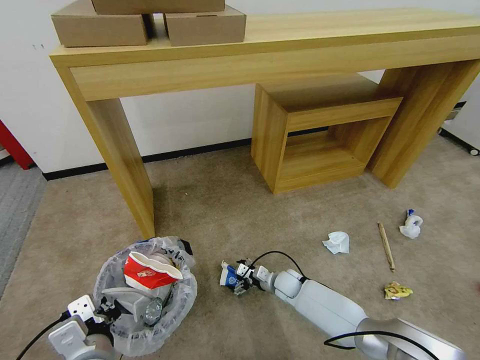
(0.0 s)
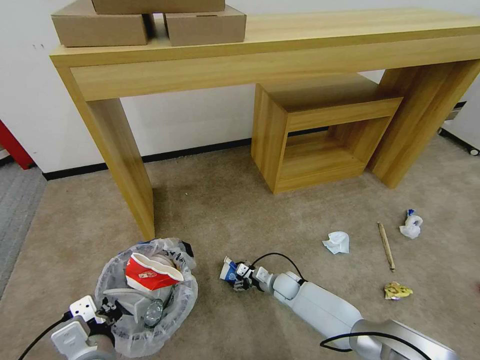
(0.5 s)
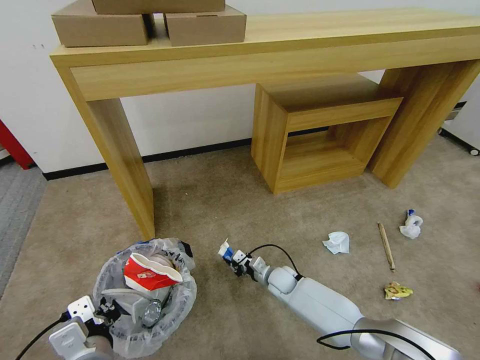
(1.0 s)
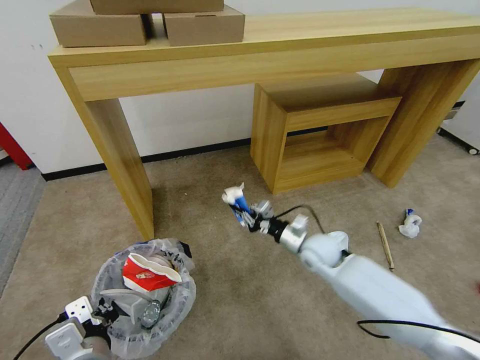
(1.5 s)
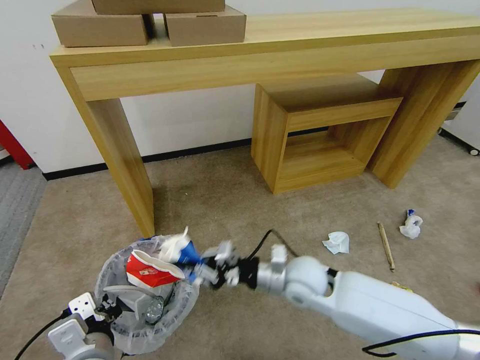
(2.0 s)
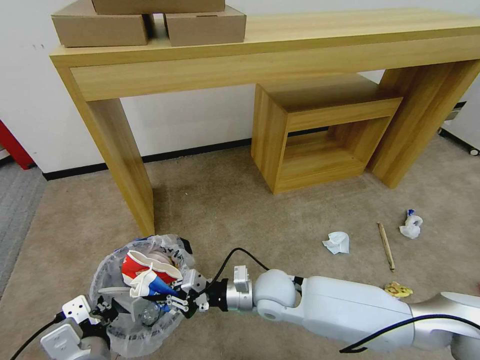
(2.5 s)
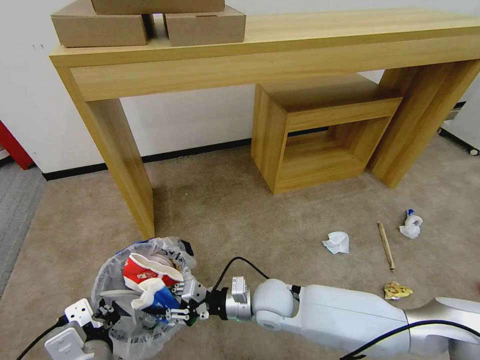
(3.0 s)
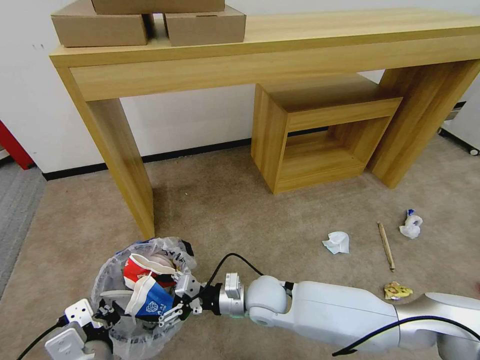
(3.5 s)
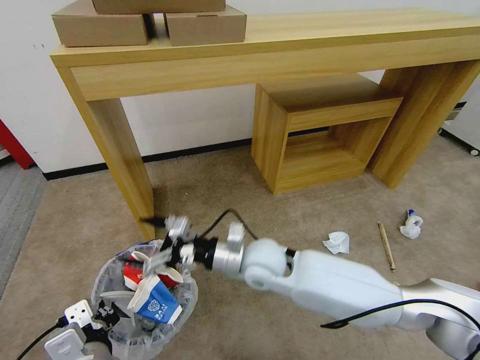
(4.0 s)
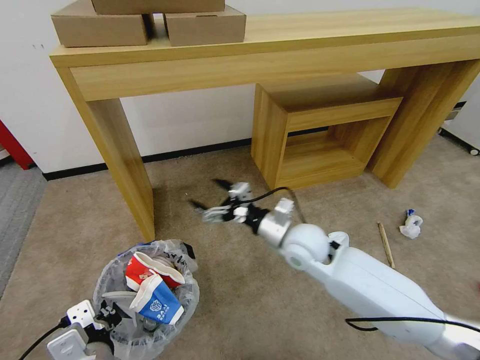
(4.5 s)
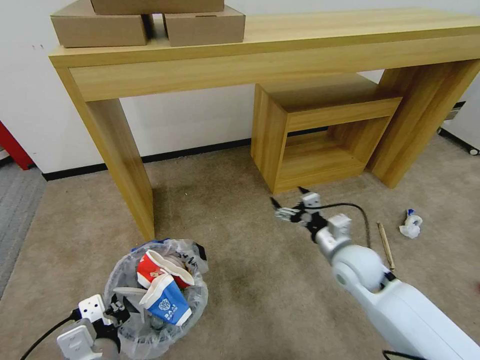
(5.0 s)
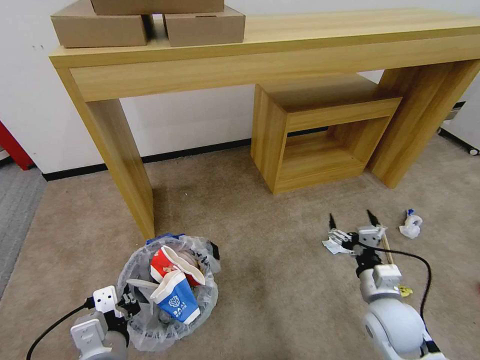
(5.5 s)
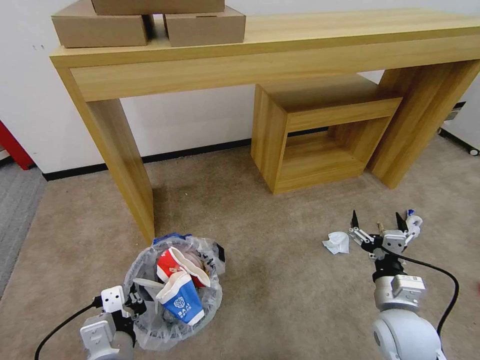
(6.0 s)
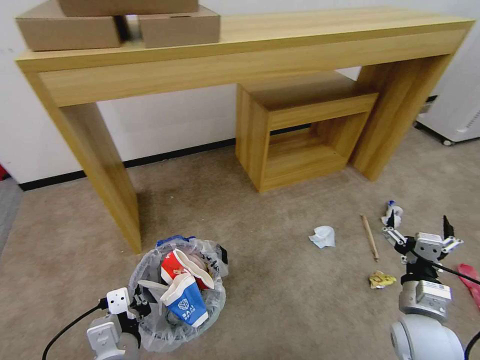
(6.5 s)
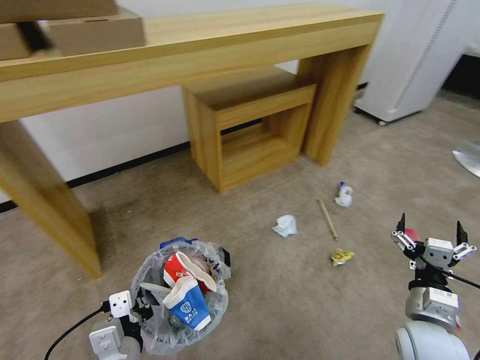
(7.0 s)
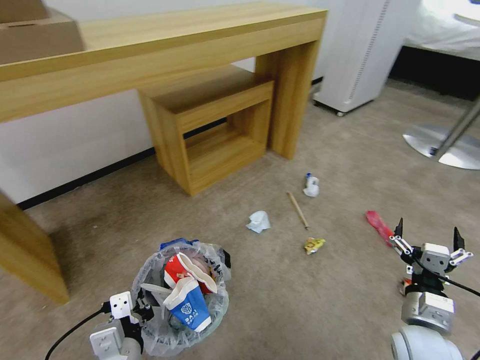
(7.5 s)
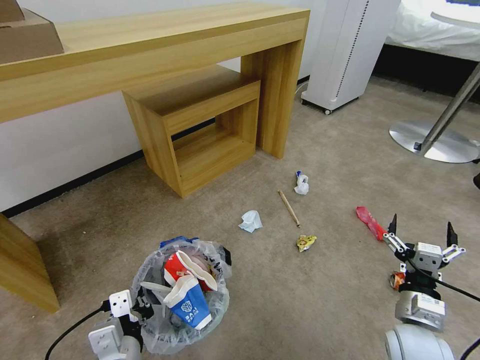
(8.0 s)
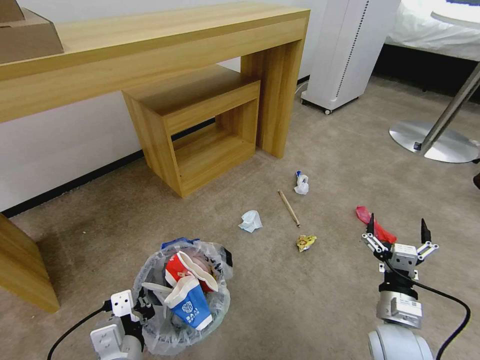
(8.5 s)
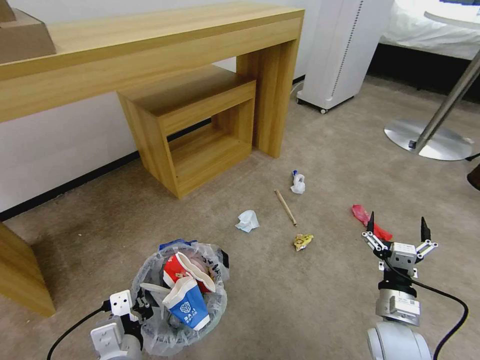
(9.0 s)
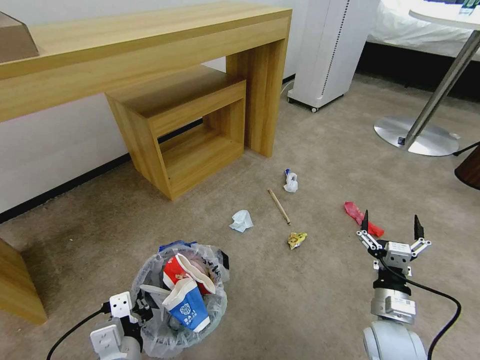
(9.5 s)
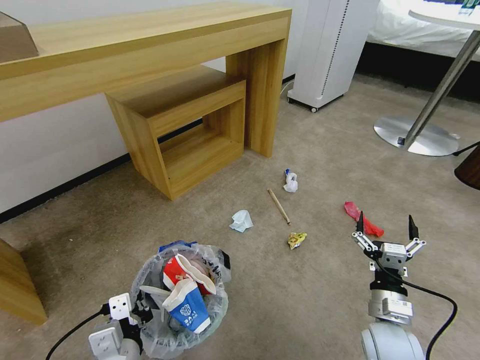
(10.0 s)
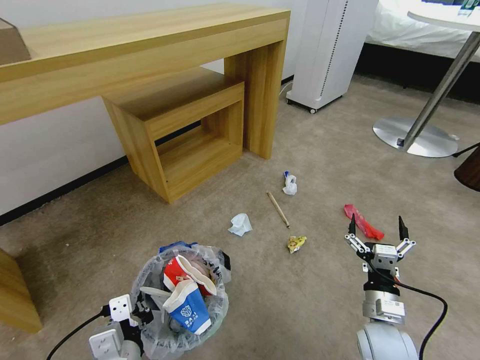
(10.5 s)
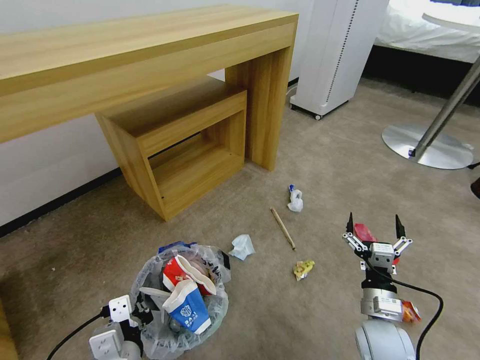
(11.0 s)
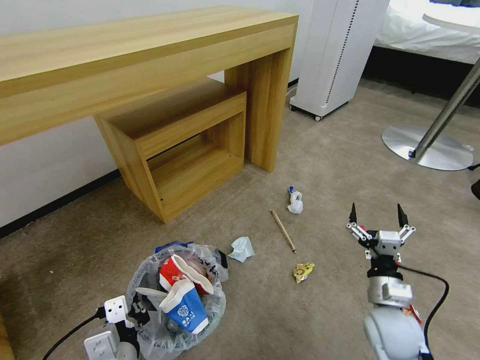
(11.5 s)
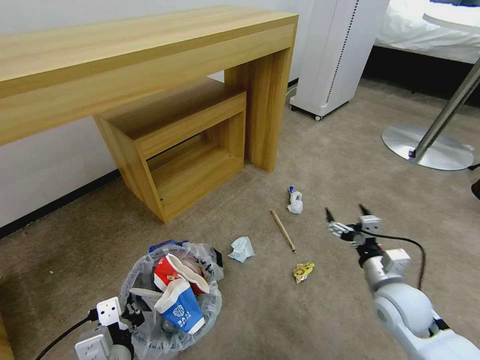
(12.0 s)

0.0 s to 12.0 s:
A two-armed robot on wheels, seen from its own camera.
Task of the whole recording: Pick up the trash bin and place the garbage on the floor into it.
0.0 to 2.0 s: The right gripper goes some 25 cm upward, and closes.
2.0 to 4.0 s: The right gripper shifts approximately 10 cm to the left, and opens its fingers.
4.0 to 6.0 s: The right gripper moves to the right and backward, approximately 30 cm.
10.0 to 12.0 s: The right gripper heads forward, covering about 5 cm.

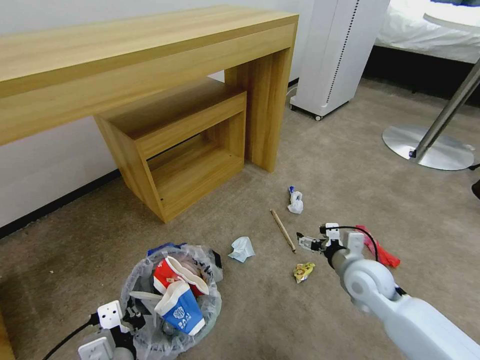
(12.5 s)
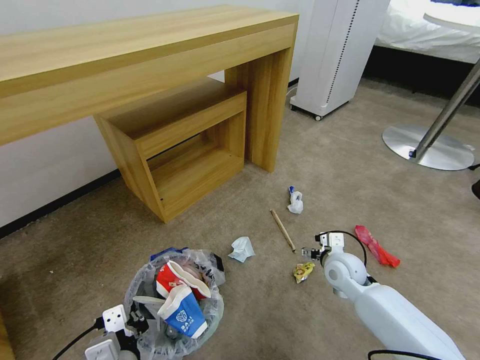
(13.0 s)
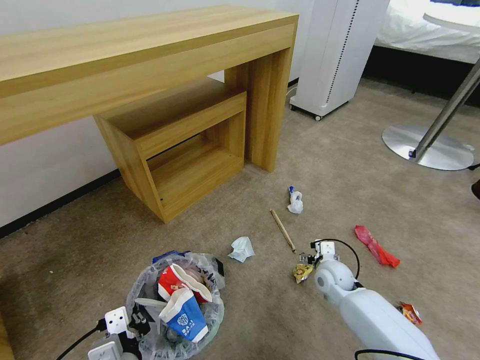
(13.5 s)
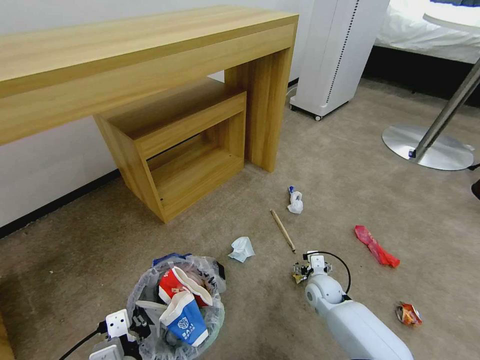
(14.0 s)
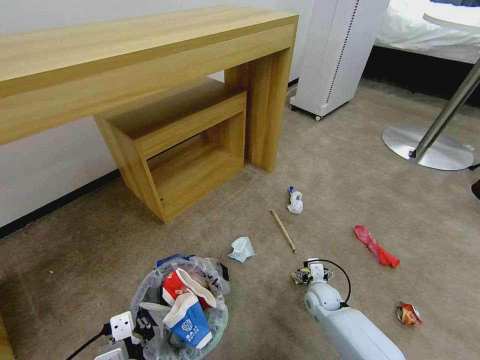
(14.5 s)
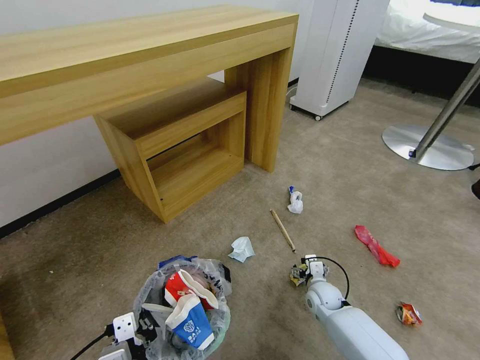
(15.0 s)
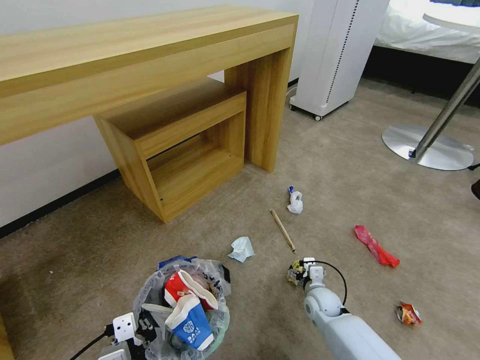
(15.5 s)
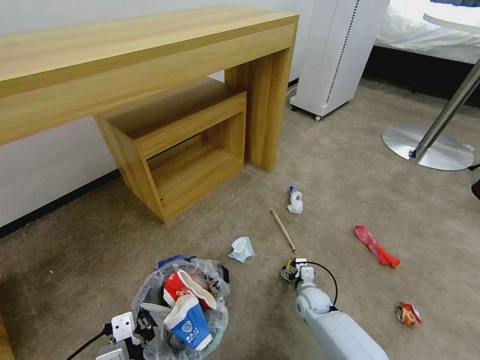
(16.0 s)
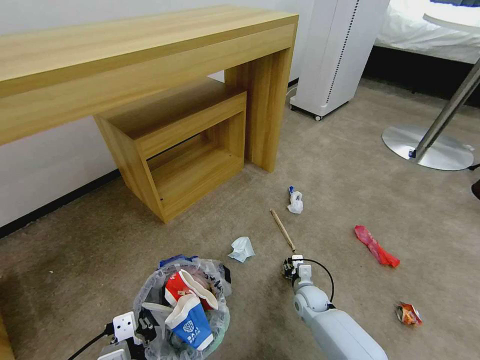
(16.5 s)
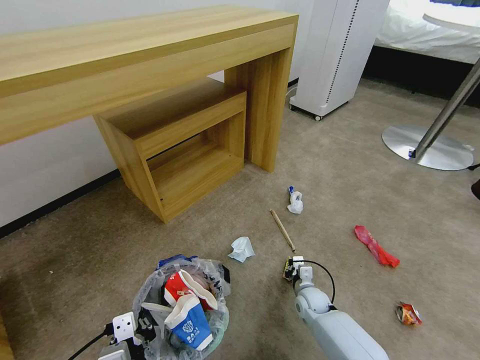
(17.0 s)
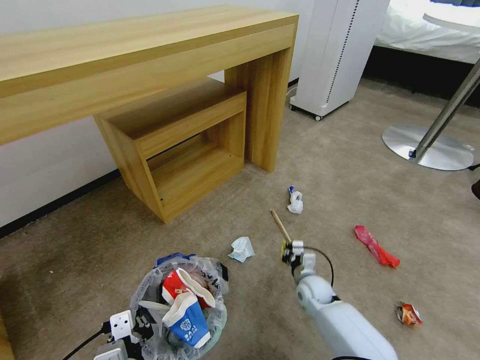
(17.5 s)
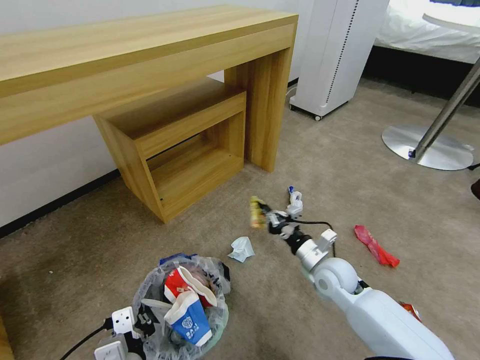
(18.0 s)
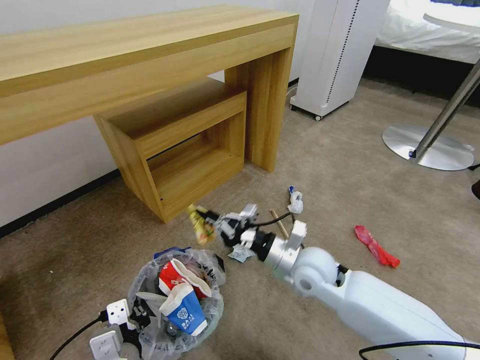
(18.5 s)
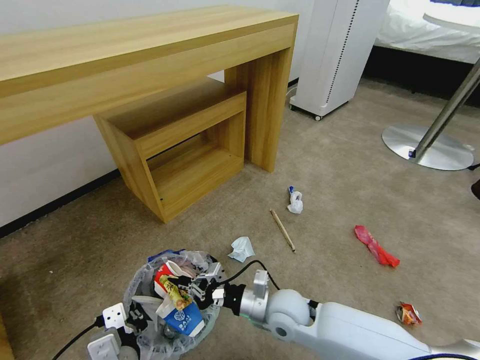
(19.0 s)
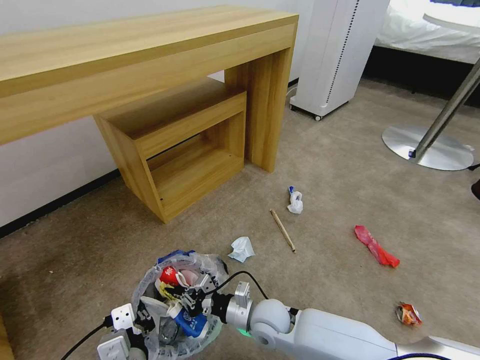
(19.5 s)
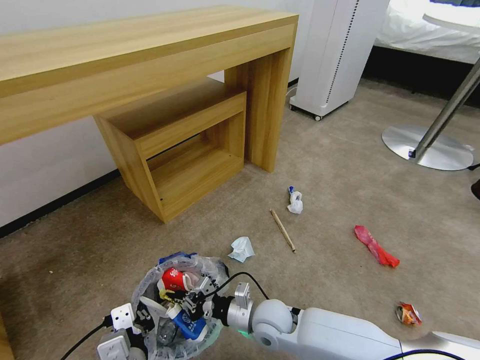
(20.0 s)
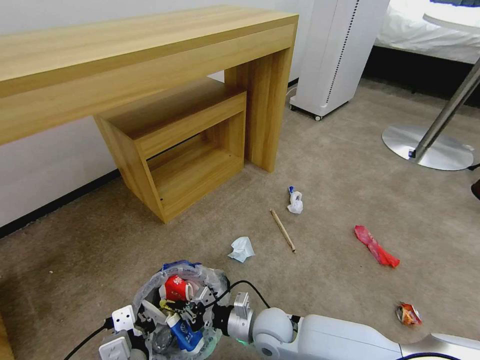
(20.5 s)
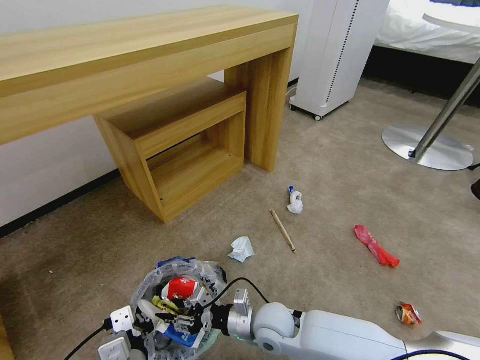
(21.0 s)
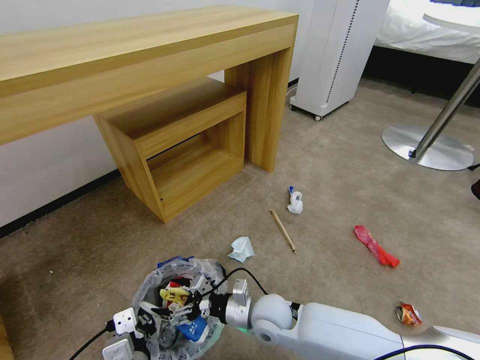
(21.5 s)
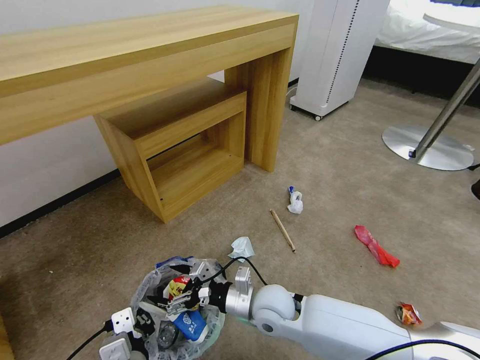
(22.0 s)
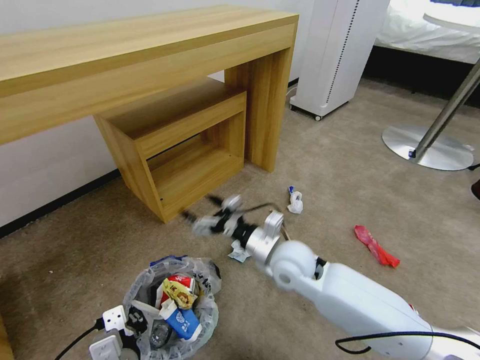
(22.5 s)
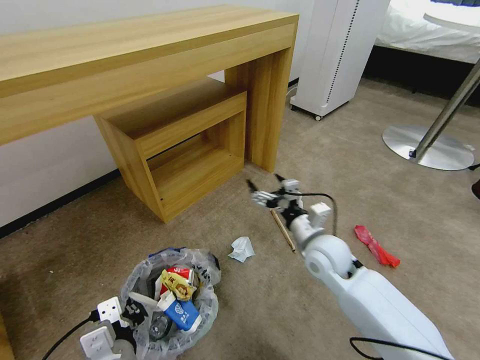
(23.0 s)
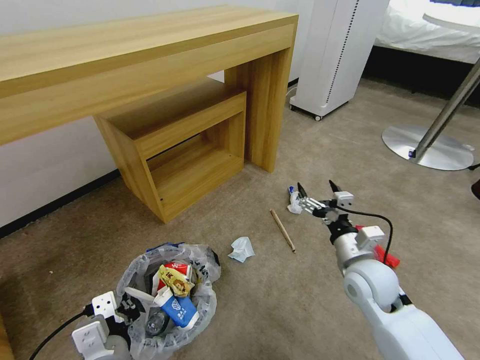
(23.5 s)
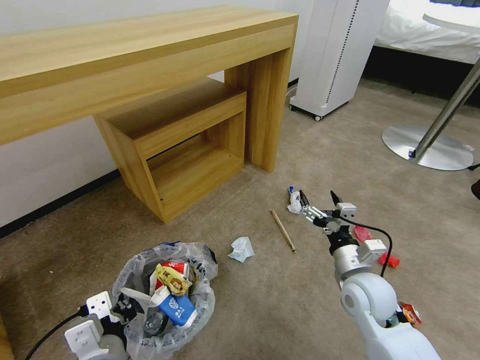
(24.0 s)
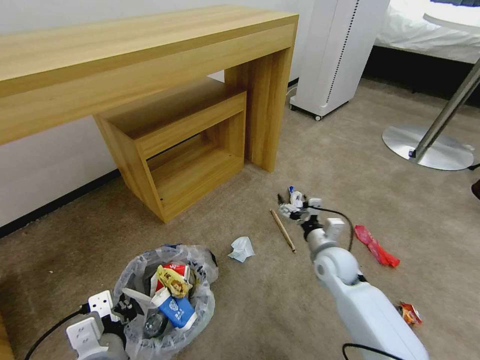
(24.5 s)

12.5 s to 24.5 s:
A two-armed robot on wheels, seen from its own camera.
Task of the whole recording: Pick up the trash bin and place the garbage on the floor into it.
12.5 to 14.5 s: The right gripper shifts approximately 20 cm downward.
14.5 to 16.5 s: The right gripper closes its fingers.
16.5 to 18.5 s: The right gripper goes approximately 25 cm upward, and closes its fingers.
18.5 to 20.5 s: The right gripper heads downward, backward and to the left, covering roughly 20 cm.
20.5 to 22.5 s: The right gripper moves upward and forward, about 20 cm, and opens up.
22.5 to 24.5 s: The right gripper heads to the right and downward, covering approximately 15 cm; the left gripper shifts by about 5 cm.

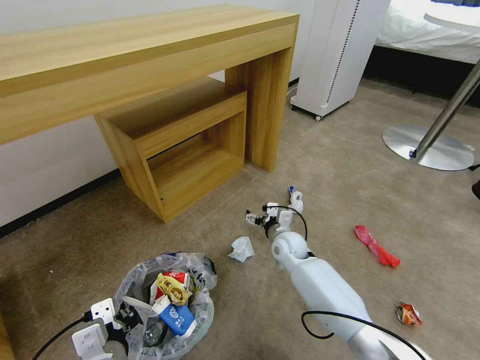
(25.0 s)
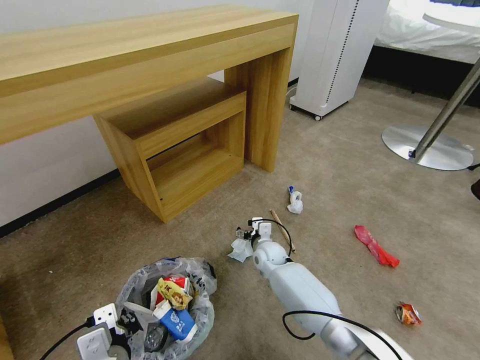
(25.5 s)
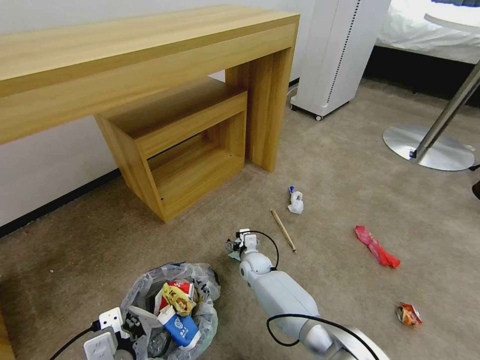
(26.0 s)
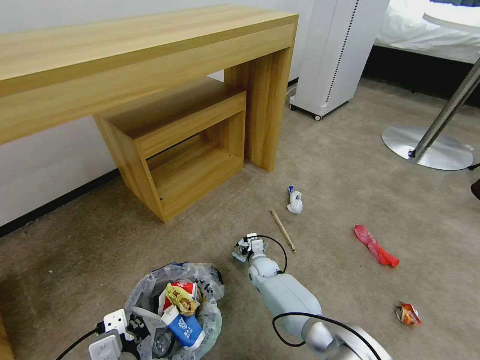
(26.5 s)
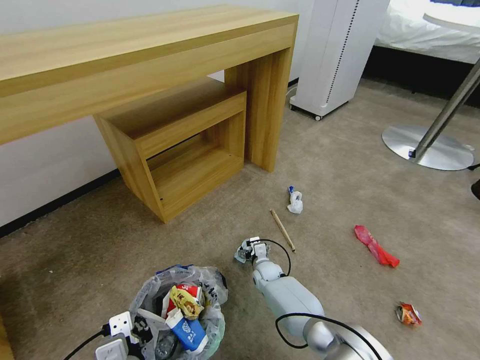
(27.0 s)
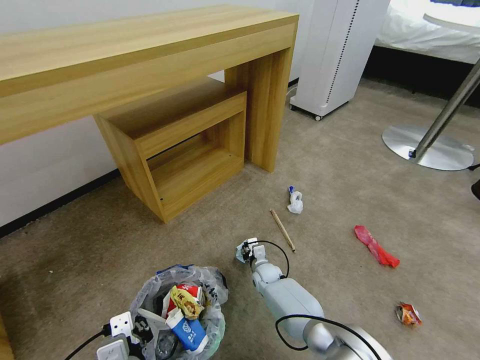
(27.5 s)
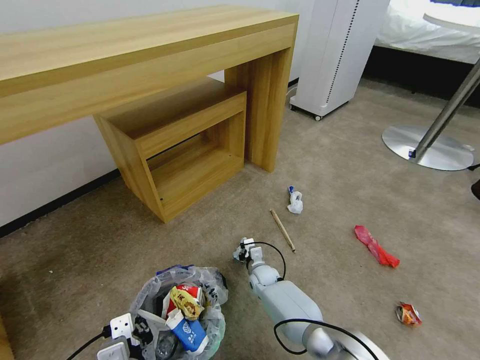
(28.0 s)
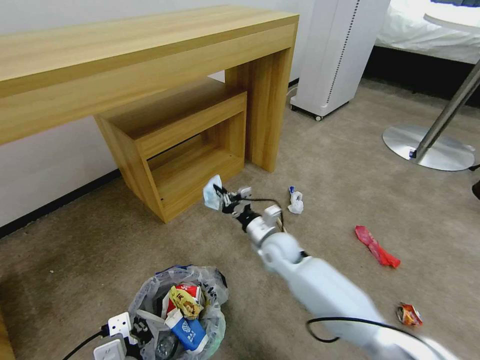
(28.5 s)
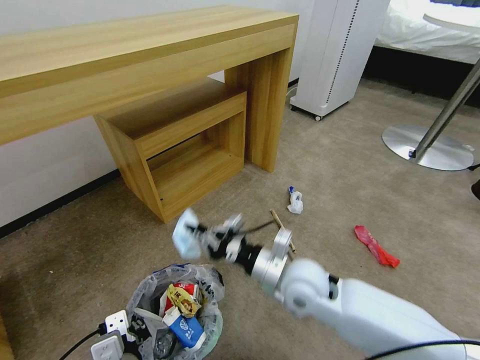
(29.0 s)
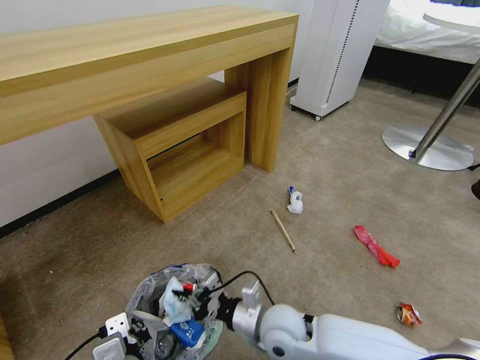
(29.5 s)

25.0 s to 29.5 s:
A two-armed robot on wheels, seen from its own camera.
Task of the whole recording: Pick up the trash bin and place the garbage on the floor into it.
25.0 to 27.0 s: The right gripper travels downward by about 15 cm.
27.0 to 29.5 s: The right gripper moves backward and upward, about 30 cm, and closes.
